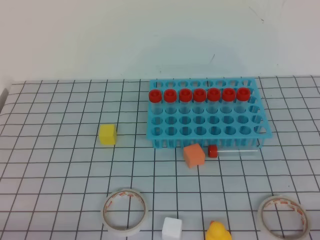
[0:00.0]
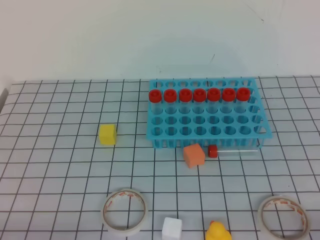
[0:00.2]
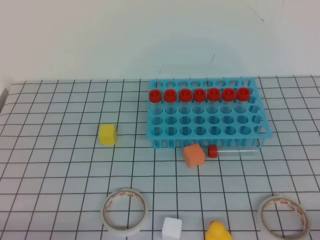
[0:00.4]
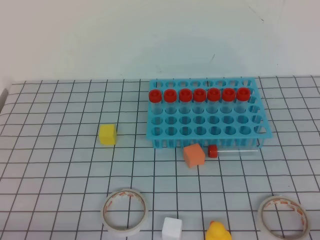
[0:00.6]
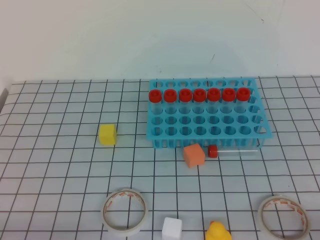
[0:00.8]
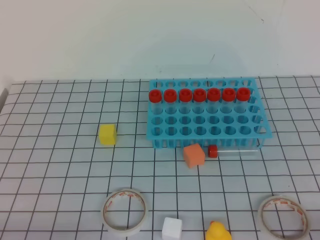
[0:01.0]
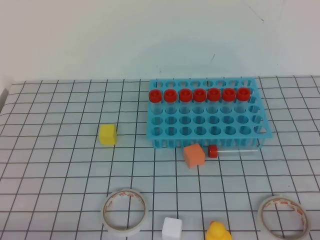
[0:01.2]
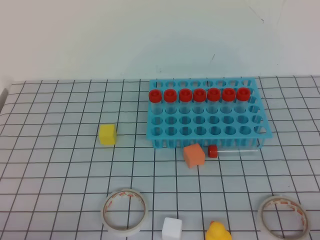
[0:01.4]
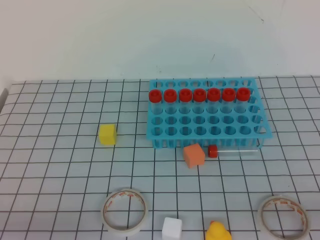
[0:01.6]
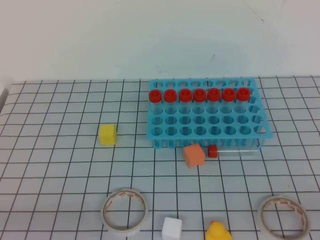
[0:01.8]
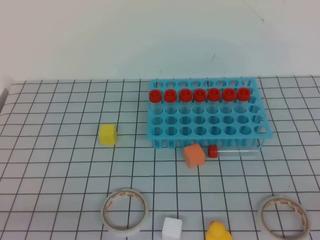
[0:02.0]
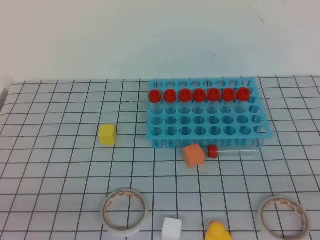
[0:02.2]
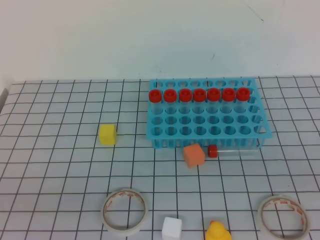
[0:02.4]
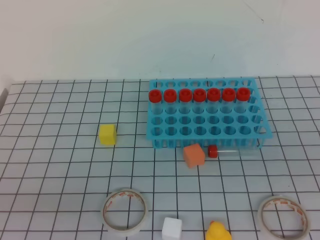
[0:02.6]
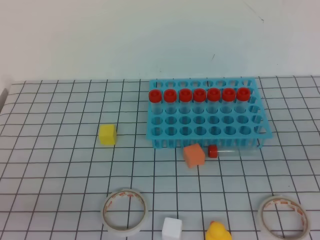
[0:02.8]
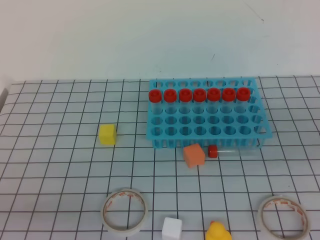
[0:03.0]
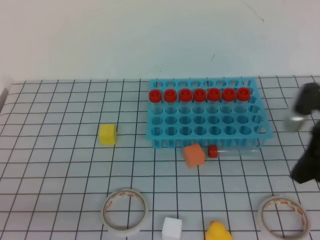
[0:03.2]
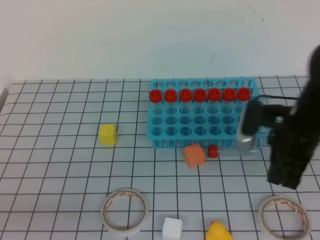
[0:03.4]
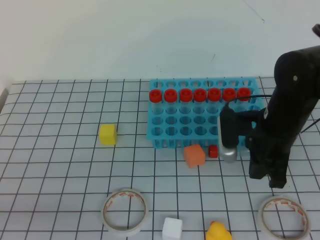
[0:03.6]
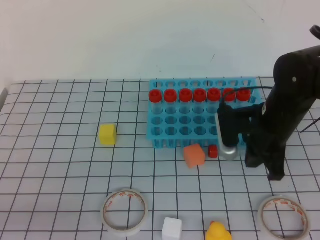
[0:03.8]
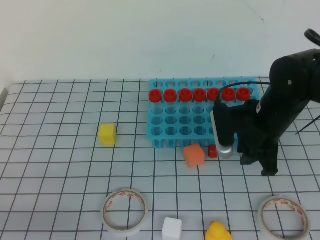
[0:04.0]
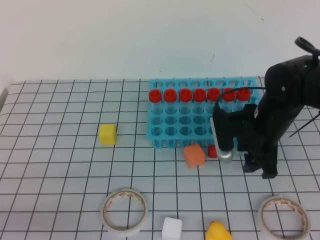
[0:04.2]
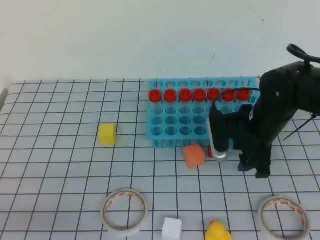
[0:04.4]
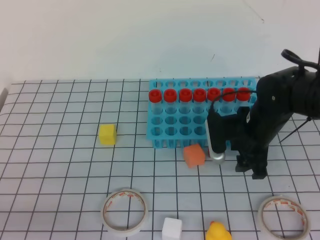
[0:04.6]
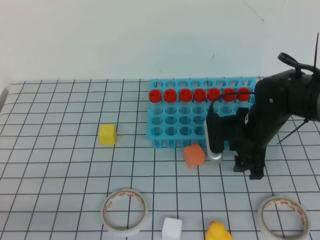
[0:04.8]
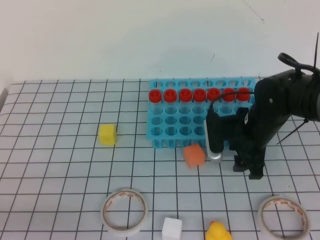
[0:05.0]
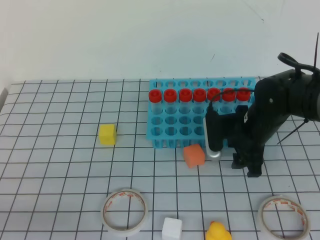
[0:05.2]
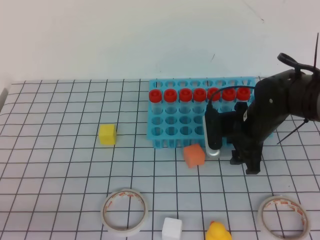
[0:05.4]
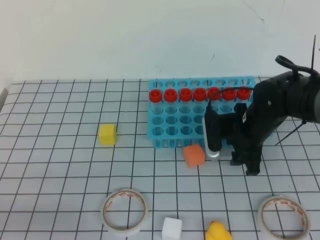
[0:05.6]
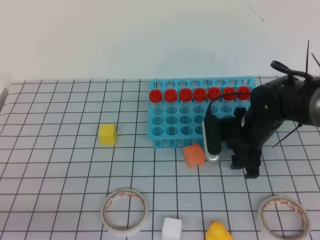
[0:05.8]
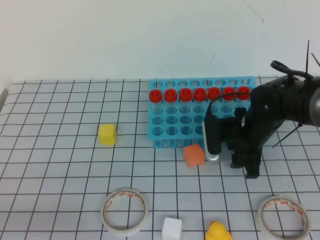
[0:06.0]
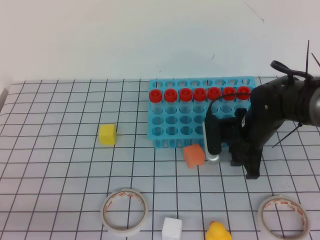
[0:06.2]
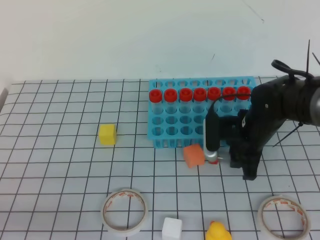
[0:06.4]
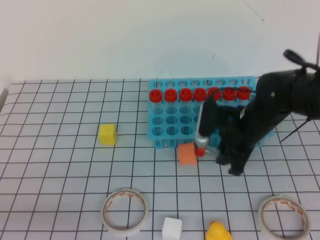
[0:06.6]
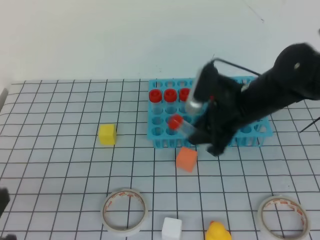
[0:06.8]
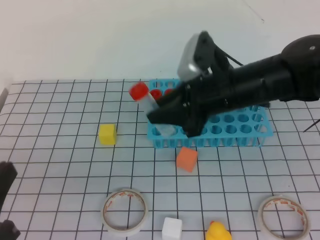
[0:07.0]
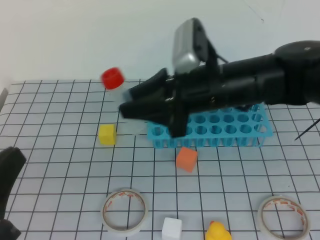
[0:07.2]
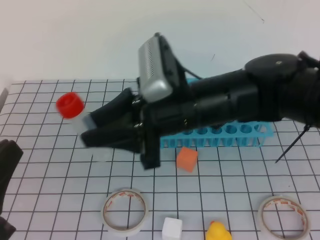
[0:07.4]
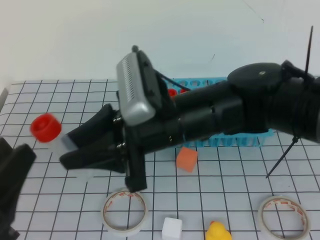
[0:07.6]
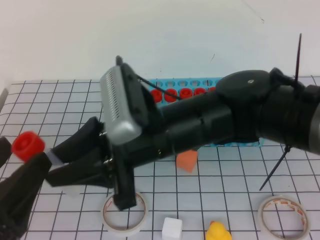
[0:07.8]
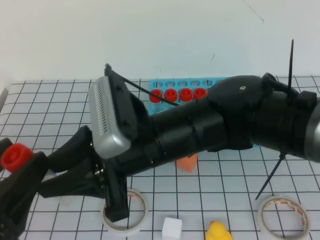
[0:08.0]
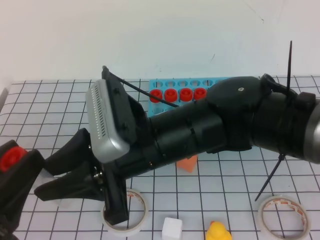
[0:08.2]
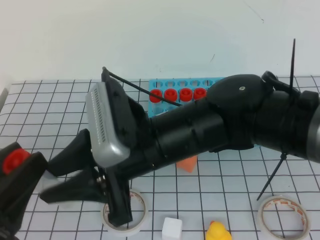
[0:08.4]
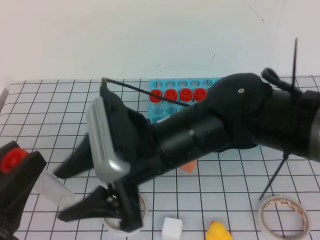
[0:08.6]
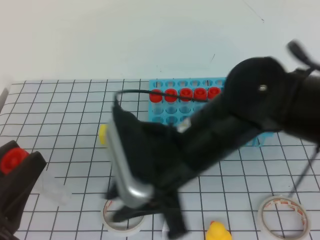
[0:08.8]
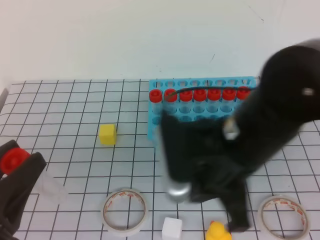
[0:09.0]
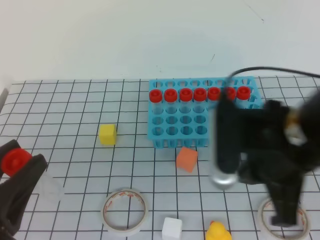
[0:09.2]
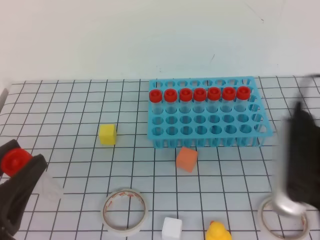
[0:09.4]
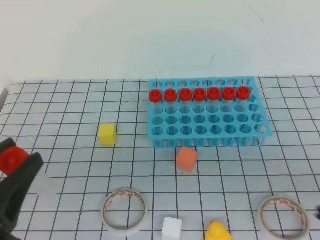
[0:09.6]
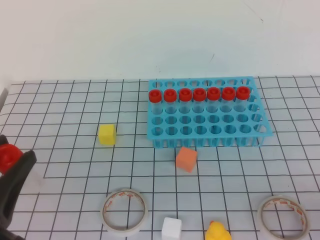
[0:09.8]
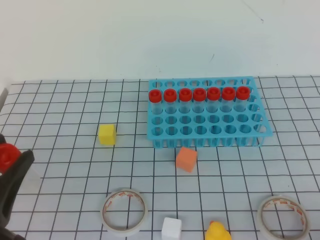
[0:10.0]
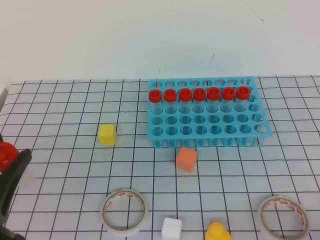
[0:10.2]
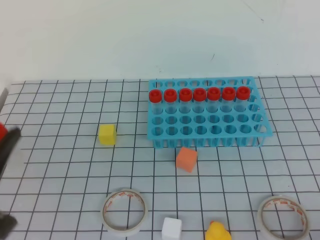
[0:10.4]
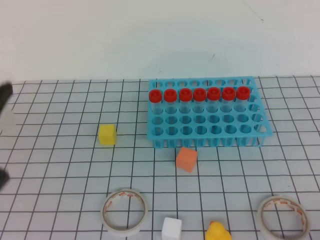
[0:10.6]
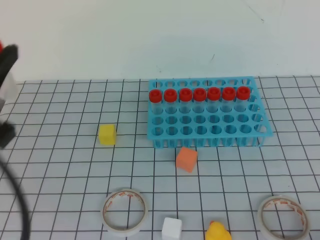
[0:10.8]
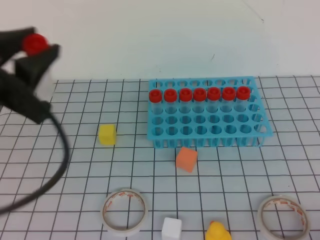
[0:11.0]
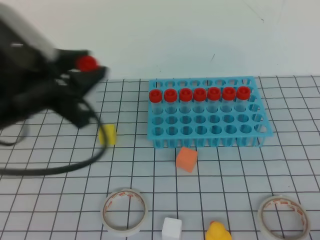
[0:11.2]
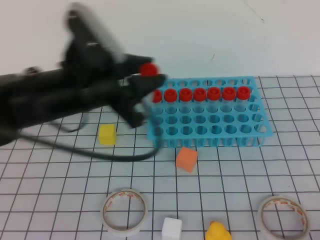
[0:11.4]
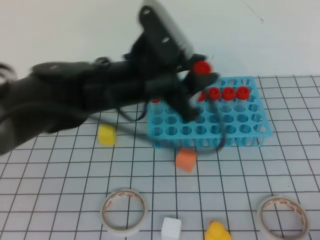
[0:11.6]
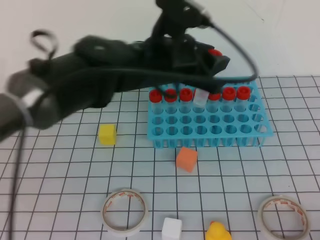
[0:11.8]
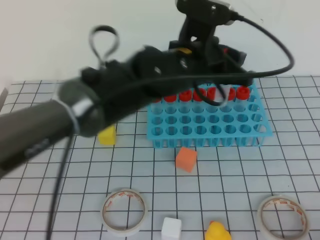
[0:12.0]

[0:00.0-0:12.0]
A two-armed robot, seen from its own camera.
0:03.0 to 0:04.4: The right gripper is displaced forward, to the left and downward by some 25 cm, and opens up.
0:04.4 to 0:06.0: The grippers stay close to where they were, moving slightly.
0:06.0 to 0:07.6: The left gripper is displaced upward by roughly 5 cm, and opens up, while the right gripper moves upward, to the left and backward, about 25 cm.
0:07.6 to 0:09.0: The right gripper is displaced backward by some 5 cm. Meanwhile the left gripper opens, then closes once more.
0:09.0 to 0:10.4: The right gripper shifts some 30 cm to the right and backward.
0:10.4 to 0:12.0: The left gripper travels forward and to the right by about 35 cm.

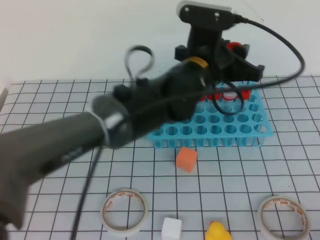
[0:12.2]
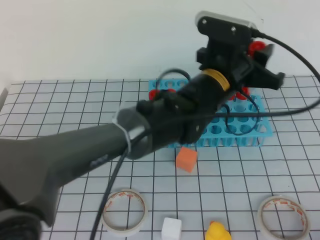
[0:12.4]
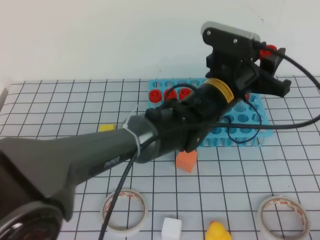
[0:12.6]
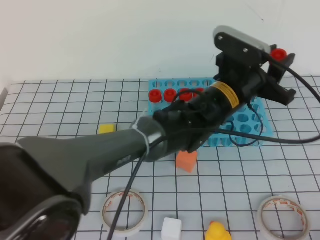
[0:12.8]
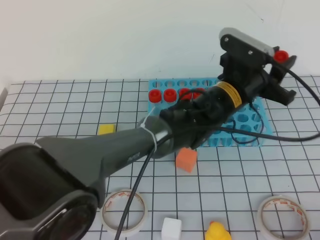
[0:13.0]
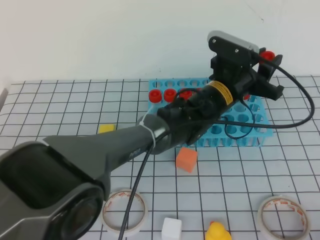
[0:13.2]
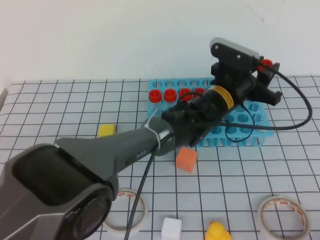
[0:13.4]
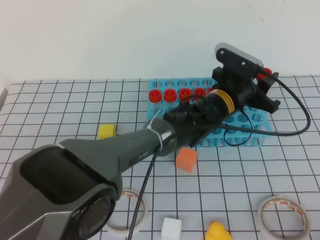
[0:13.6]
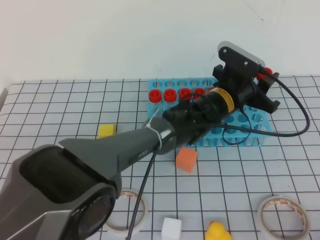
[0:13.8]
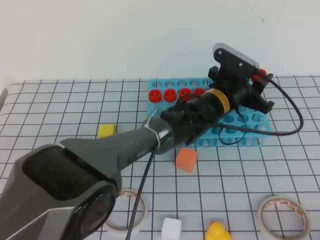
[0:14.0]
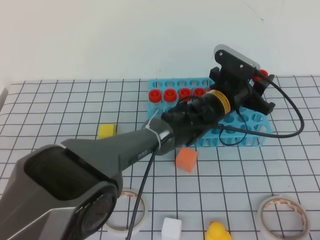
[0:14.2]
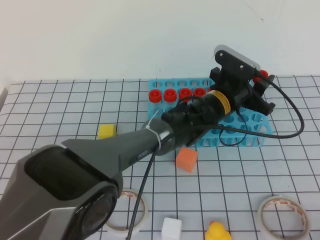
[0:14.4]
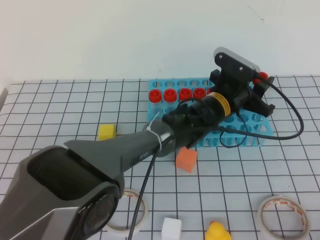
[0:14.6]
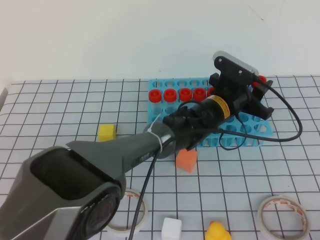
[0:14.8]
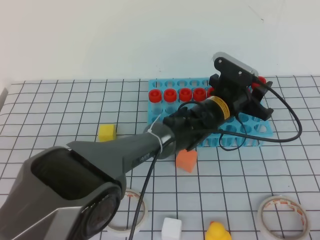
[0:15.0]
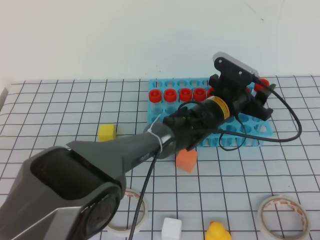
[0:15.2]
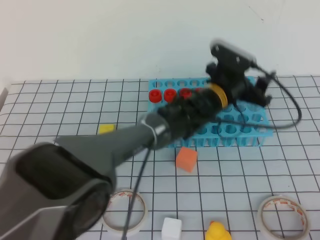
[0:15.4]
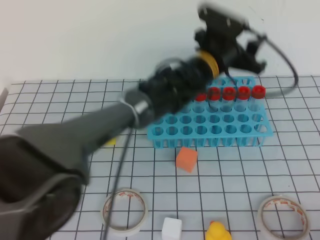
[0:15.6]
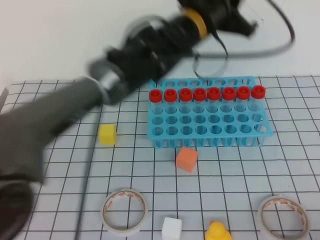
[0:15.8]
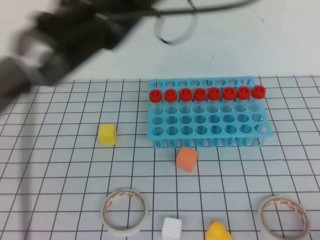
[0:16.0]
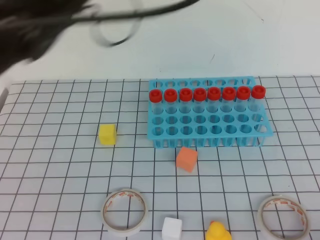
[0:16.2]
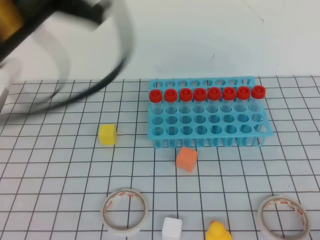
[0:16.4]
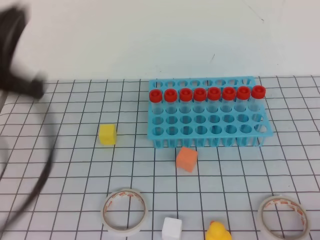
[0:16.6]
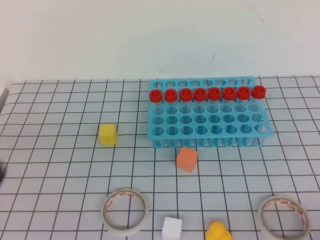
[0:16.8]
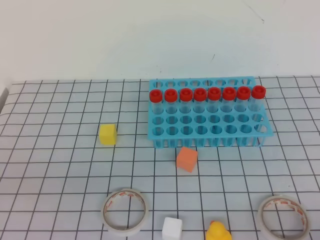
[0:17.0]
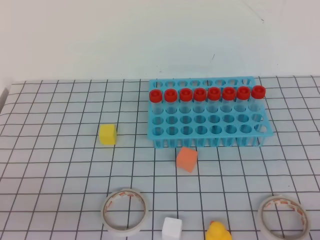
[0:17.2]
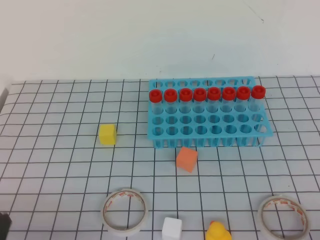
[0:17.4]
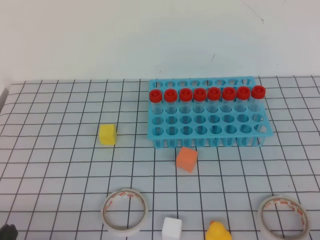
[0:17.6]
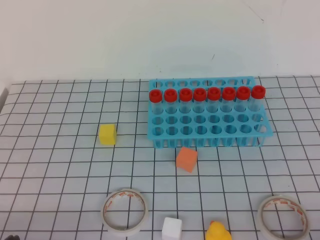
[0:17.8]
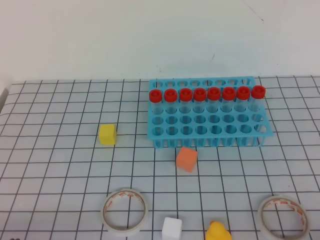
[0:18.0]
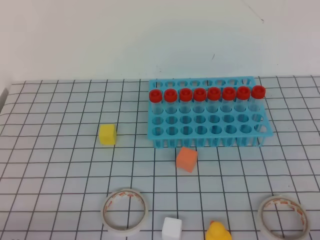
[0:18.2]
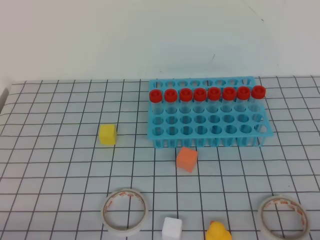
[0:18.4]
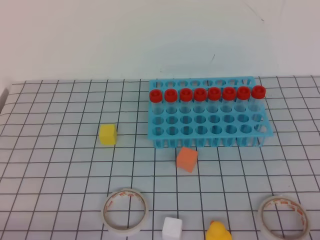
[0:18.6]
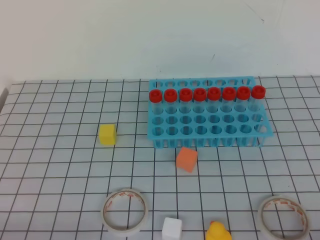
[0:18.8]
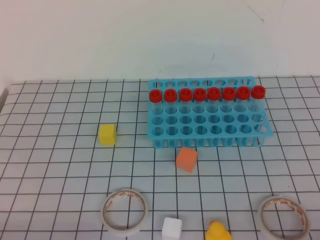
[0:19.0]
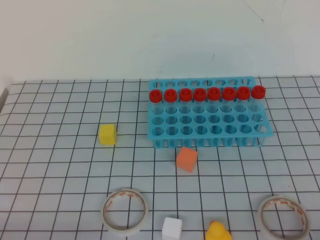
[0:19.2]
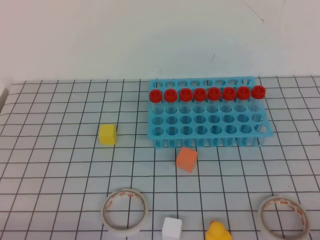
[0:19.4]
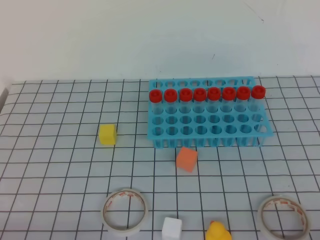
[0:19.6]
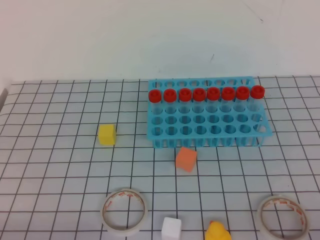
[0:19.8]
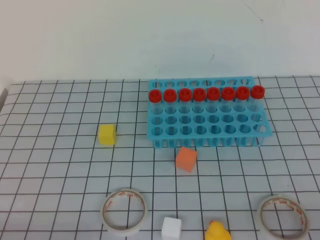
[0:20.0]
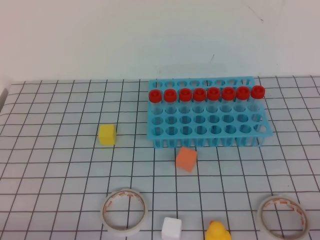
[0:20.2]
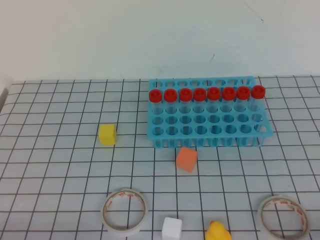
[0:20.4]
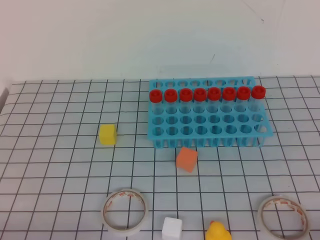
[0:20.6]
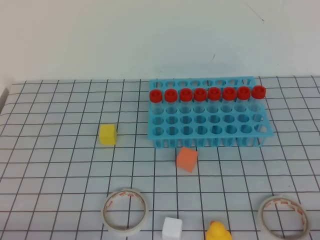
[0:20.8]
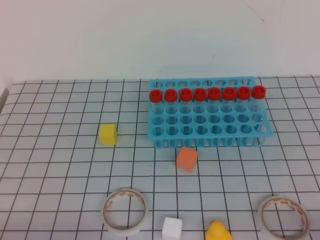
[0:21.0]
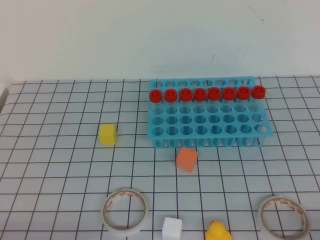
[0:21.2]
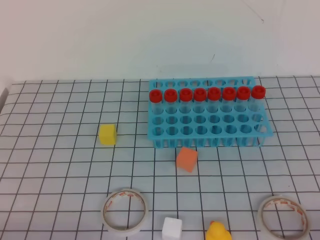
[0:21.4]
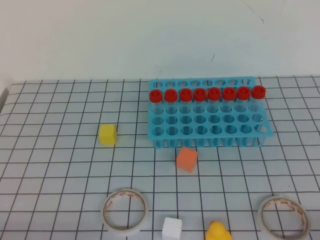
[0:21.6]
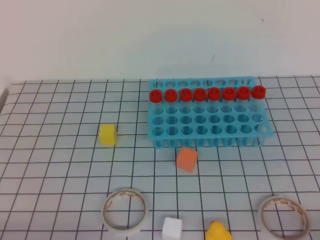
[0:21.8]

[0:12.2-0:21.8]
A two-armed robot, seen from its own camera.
0:12.2 to 0:13.8: The left gripper shifts about 15 cm downward, to the right and forward.
0:13.8 to 0:15.4: The left gripper opens.
0:15.4 to 0:17.0: The left gripper heads backward and to the left, covering approximately 50 cm, and closes.
0:17.0 to 0:18.6: The left gripper travels downward by about 15 cm.
